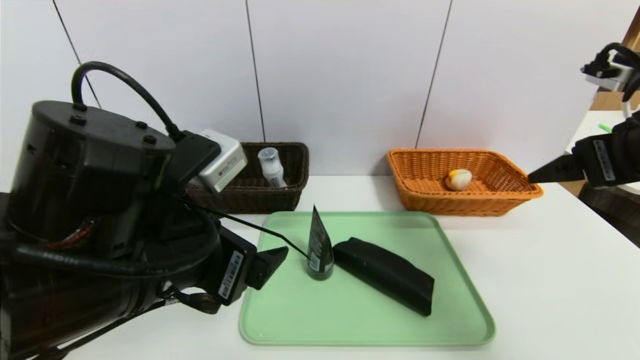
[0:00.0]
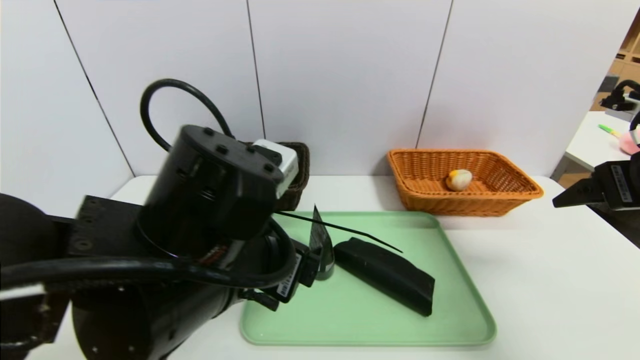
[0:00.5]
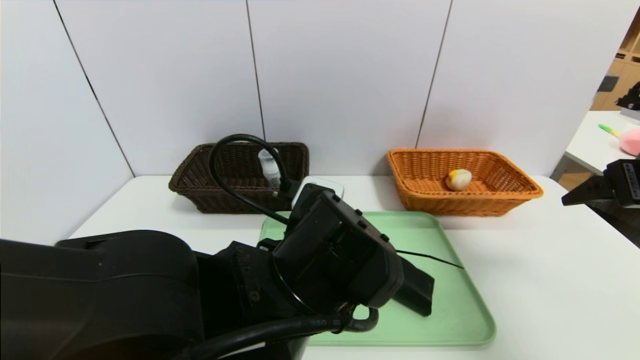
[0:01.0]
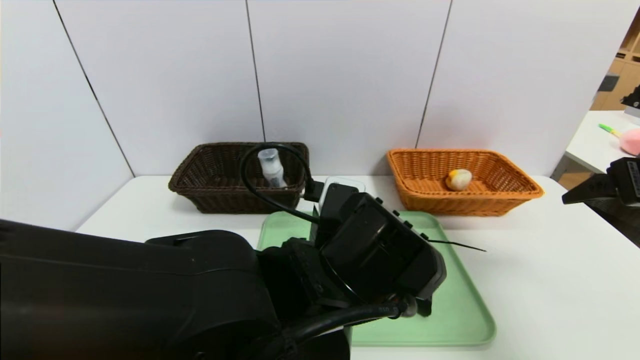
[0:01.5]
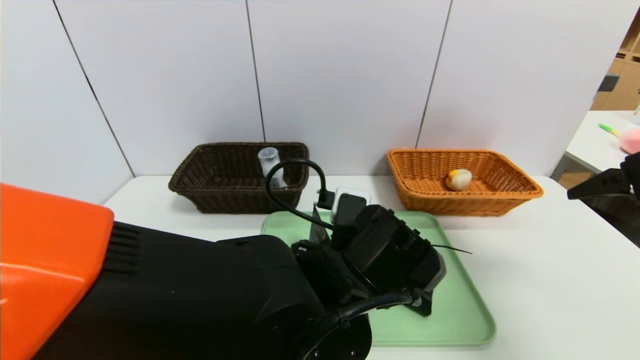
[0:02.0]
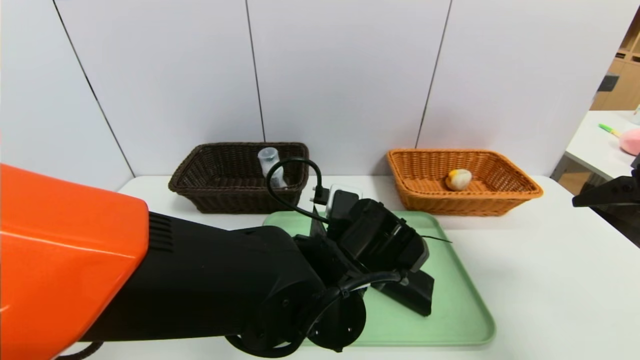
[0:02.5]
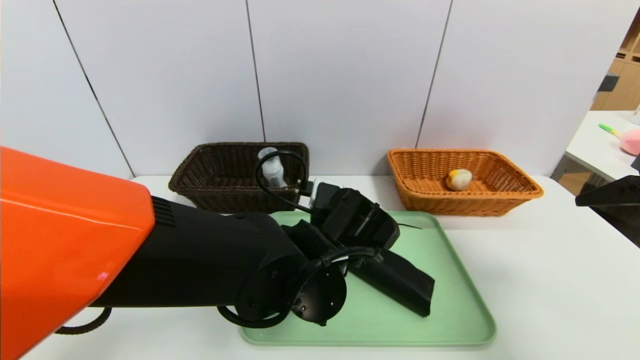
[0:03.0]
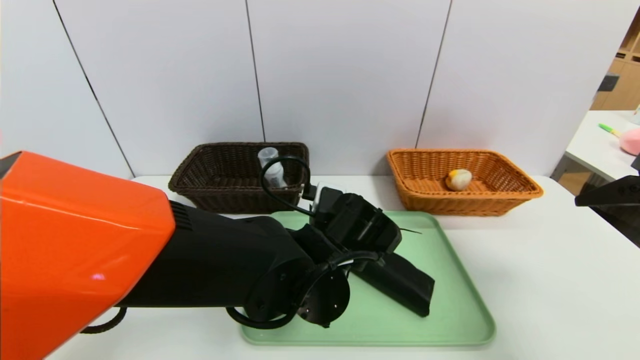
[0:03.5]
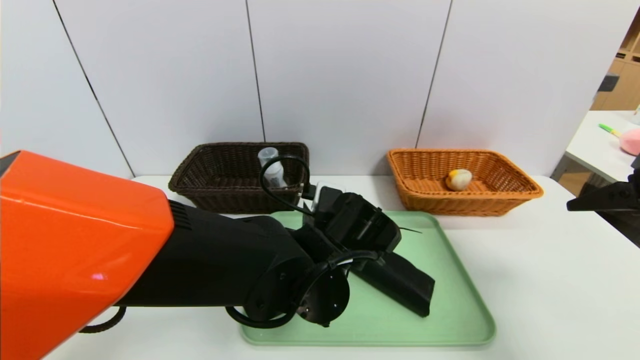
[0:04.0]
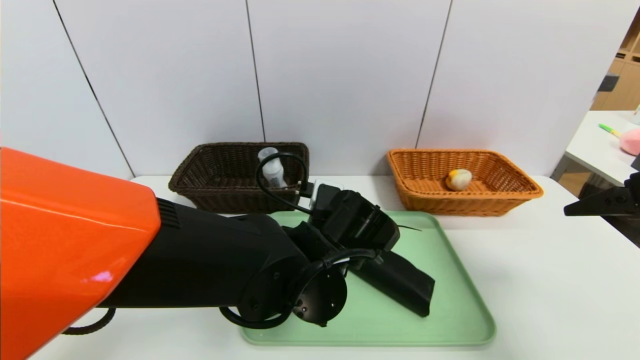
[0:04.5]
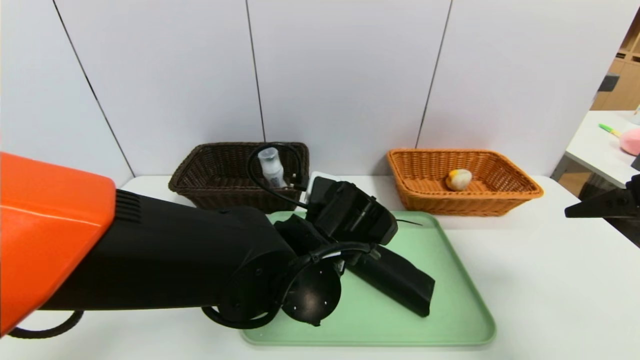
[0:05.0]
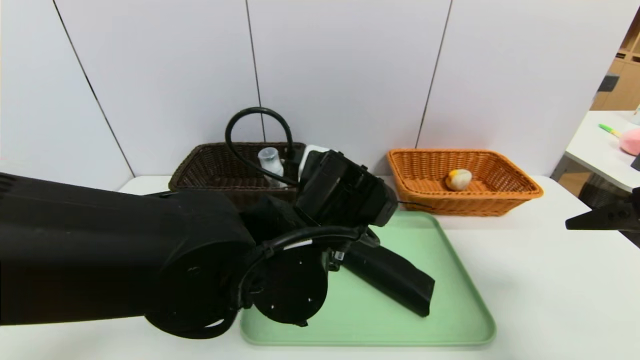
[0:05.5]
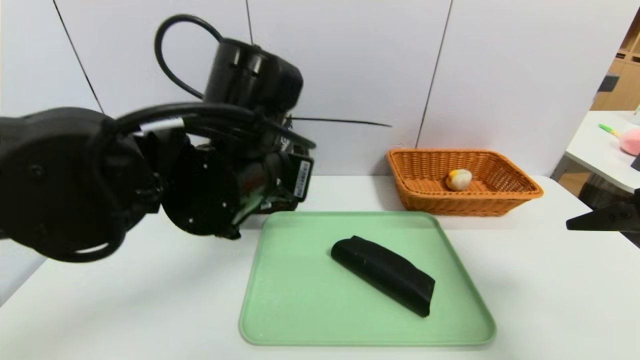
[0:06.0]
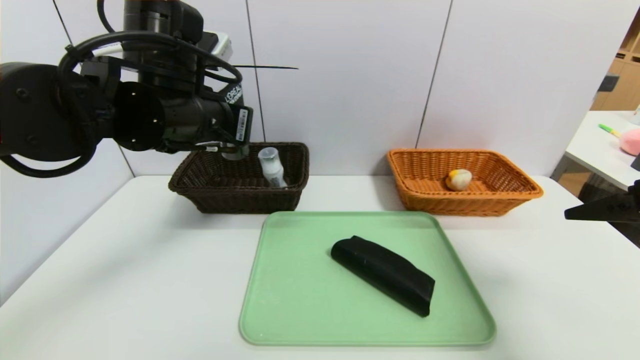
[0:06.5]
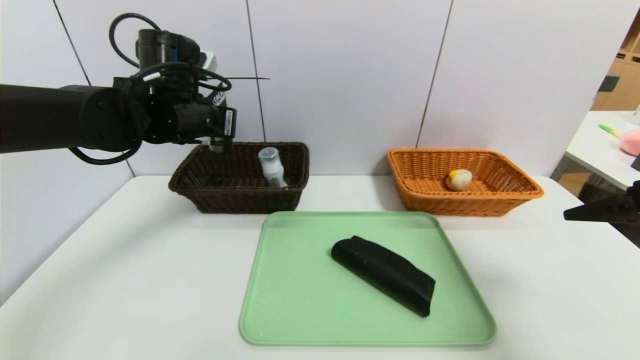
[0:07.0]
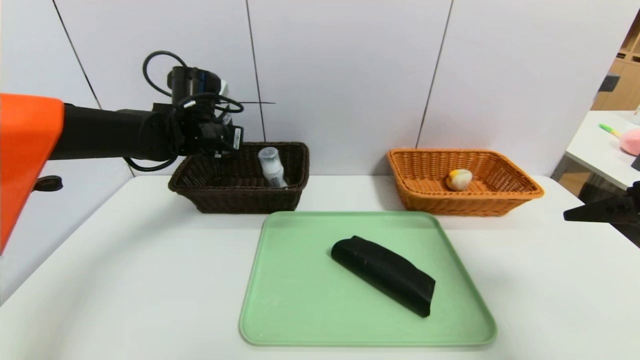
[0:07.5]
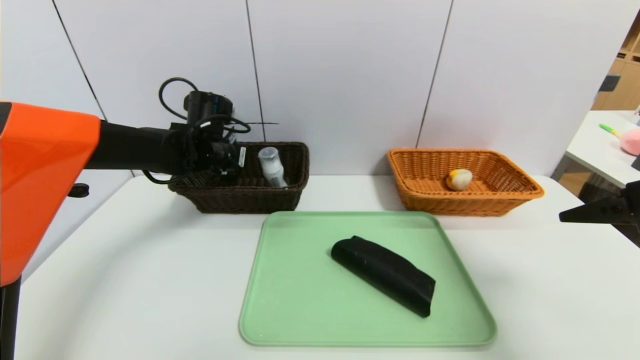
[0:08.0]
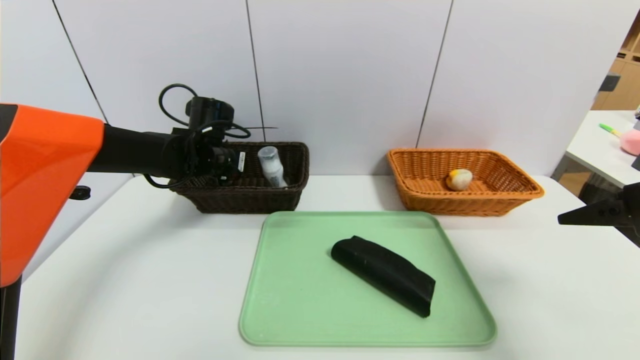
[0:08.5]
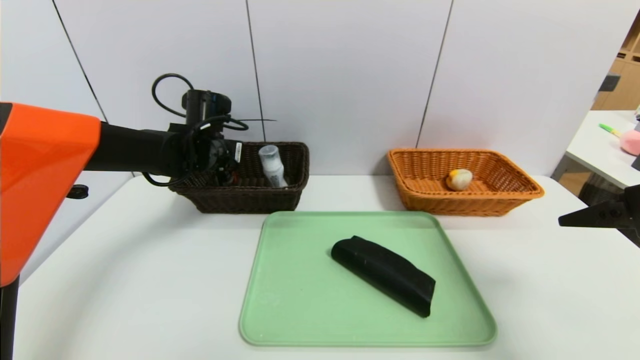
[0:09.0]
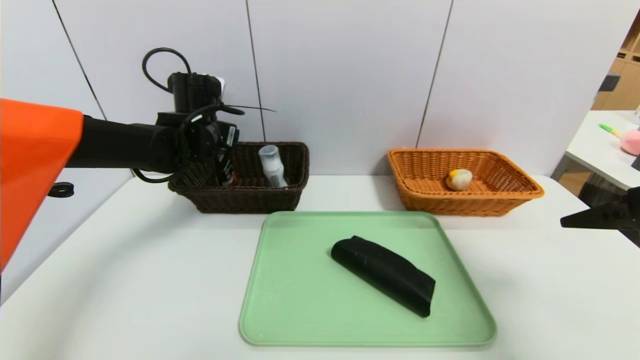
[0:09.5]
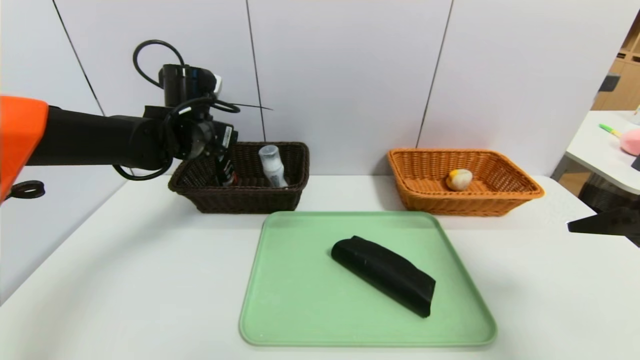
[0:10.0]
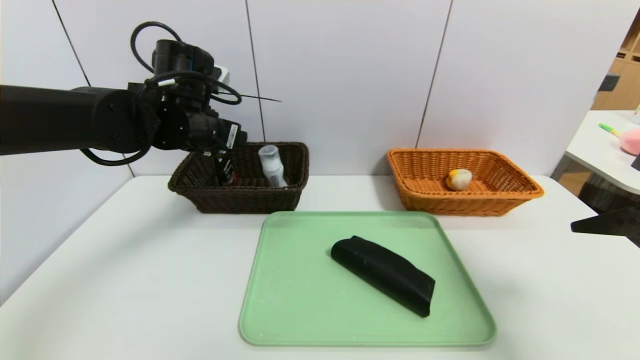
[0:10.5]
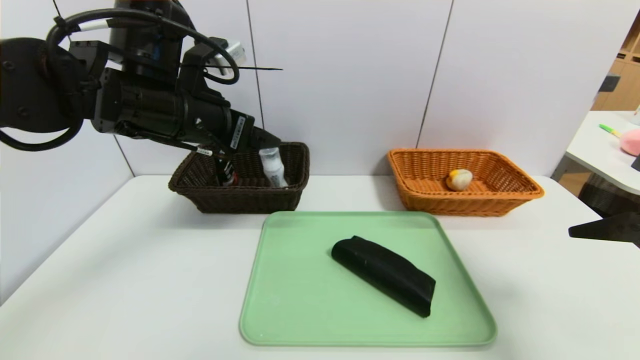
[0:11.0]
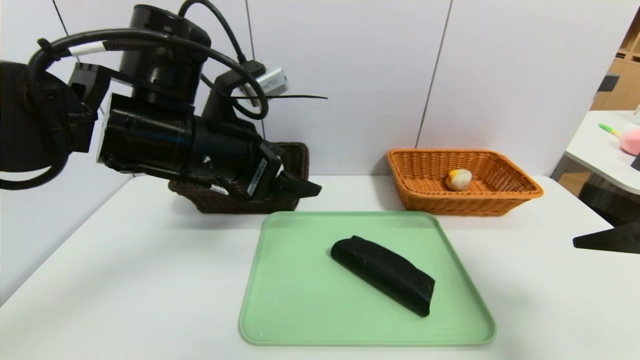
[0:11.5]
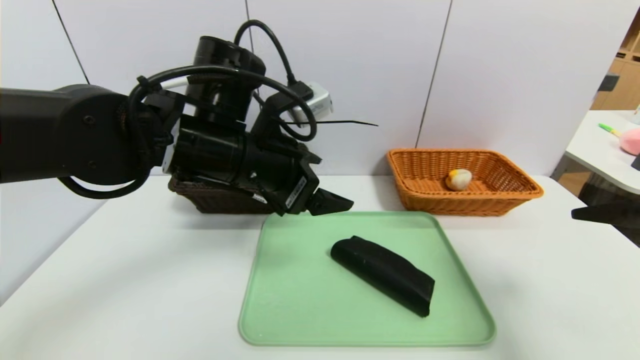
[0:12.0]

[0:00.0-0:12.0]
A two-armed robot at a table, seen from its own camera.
Task of the whole recording: place the food in the right basket with the right gripper, and place the non food items in the left basket with the left gripper.
Step, 0:00.0 to 0:10.5: Grasp the soft cleanser and put it in the left basket.
0:00.0 to 0:02.0: The left gripper is displaced to the right and downward by about 15 cm. The right gripper is displaced to the right by some 5 cm.
0:02.0 to 0:04.0: The left gripper shifts by about 5 cm, and closes.
0:04.0 to 0:06.0: The left gripper moves upward and to the left, about 15 cm, and closes.
0:06.0 to 0:08.0: The left gripper heads forward, to the left and downward, covering roughly 25 cm.
0:08.0 to 0:10.0: The left gripper shifts by about 5 cm, and opens.
0:10.0 to 0:12.0: The left gripper shifts about 15 cm backward and to the right.

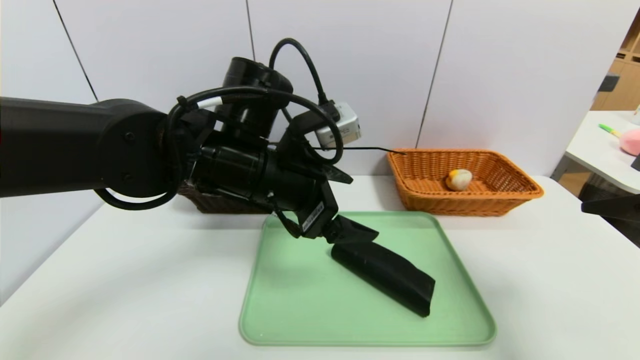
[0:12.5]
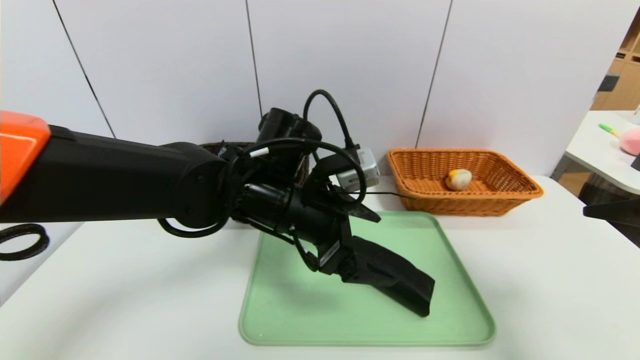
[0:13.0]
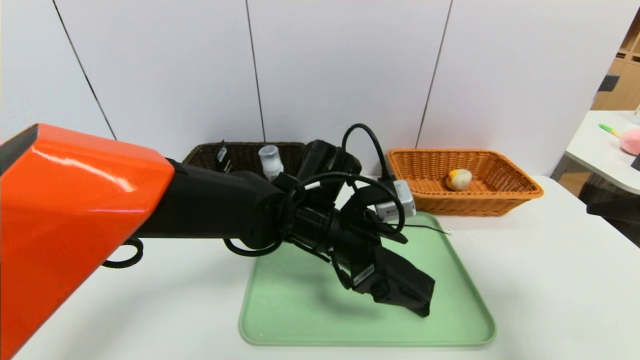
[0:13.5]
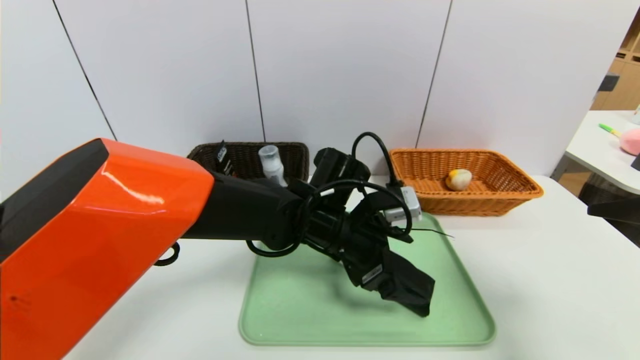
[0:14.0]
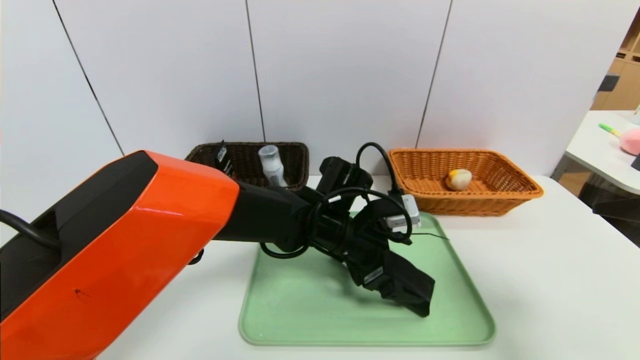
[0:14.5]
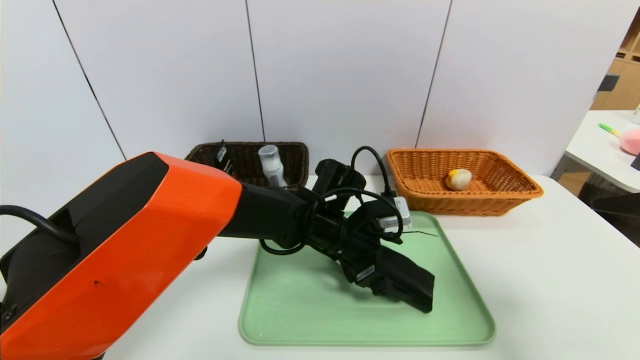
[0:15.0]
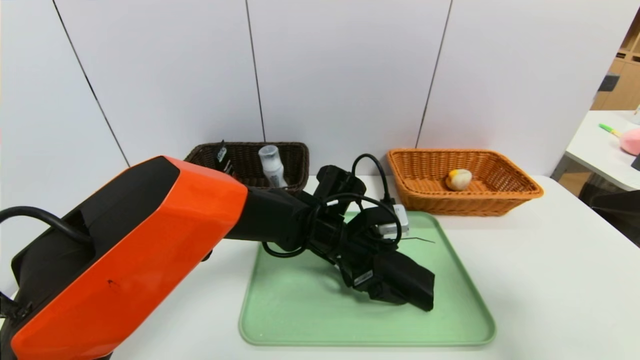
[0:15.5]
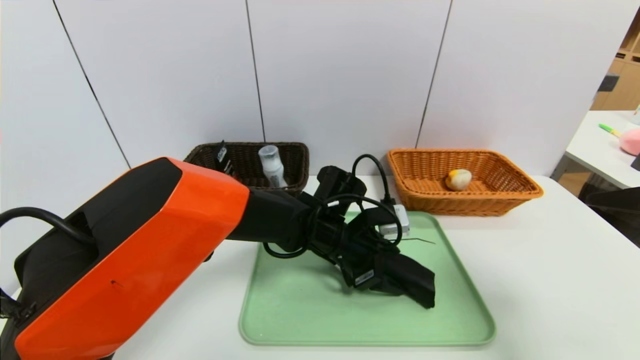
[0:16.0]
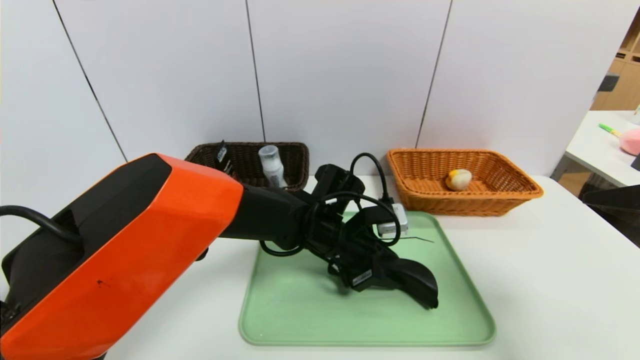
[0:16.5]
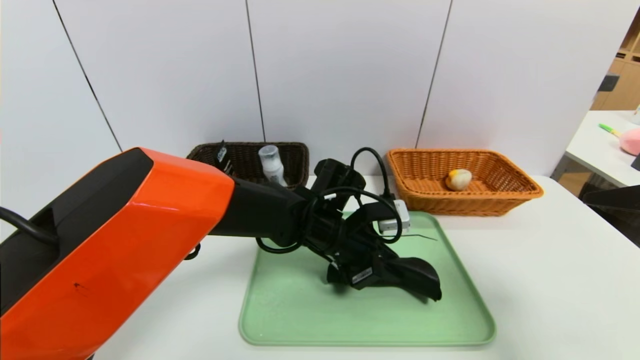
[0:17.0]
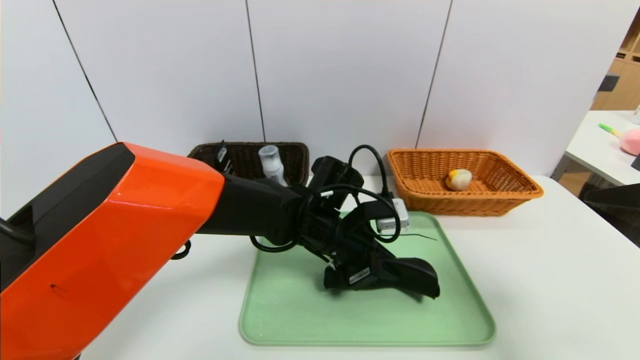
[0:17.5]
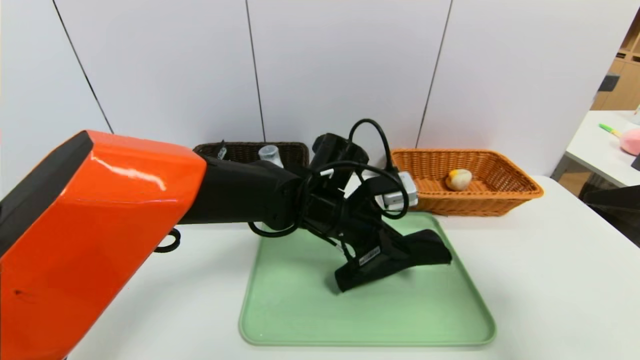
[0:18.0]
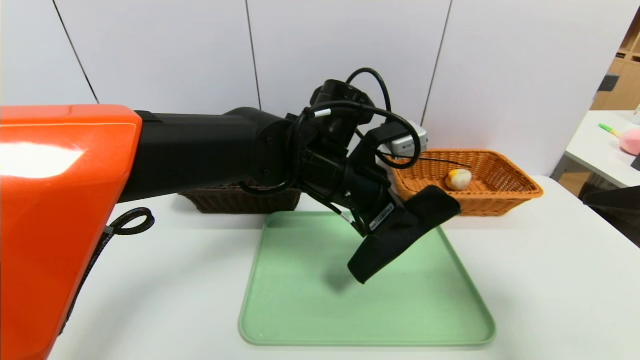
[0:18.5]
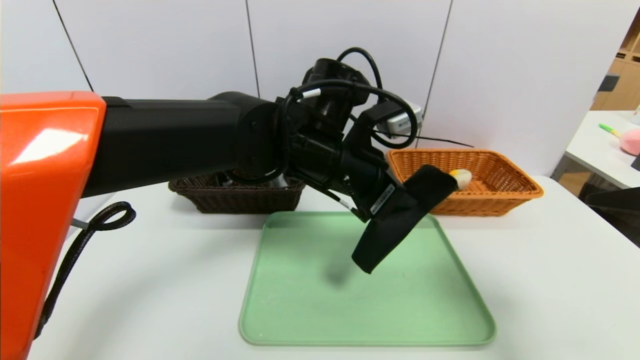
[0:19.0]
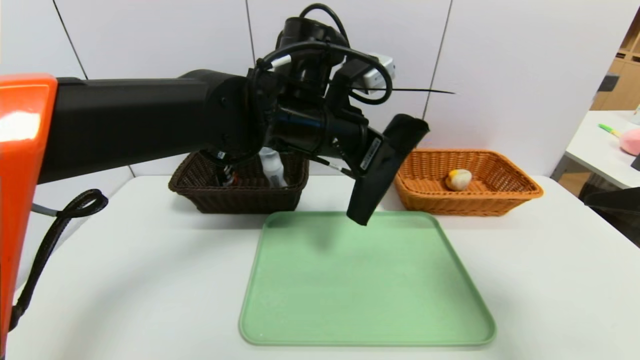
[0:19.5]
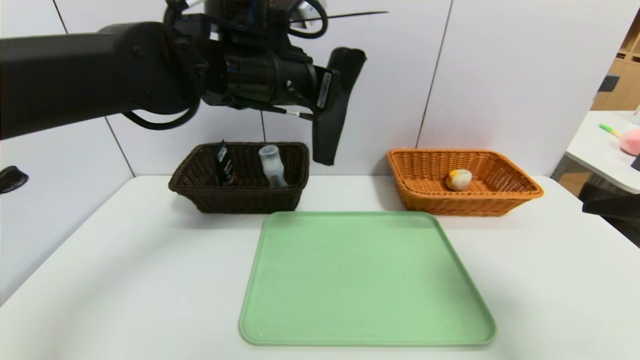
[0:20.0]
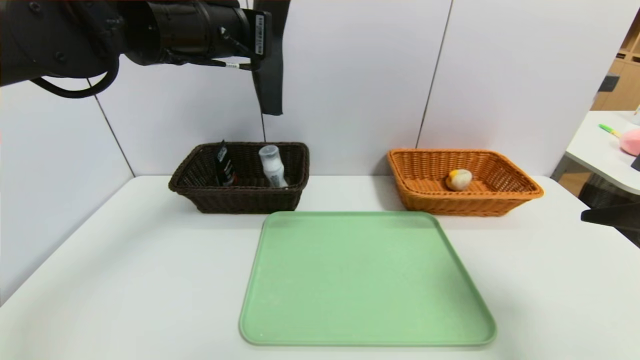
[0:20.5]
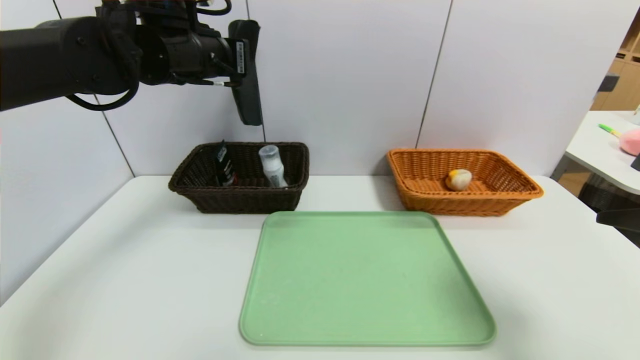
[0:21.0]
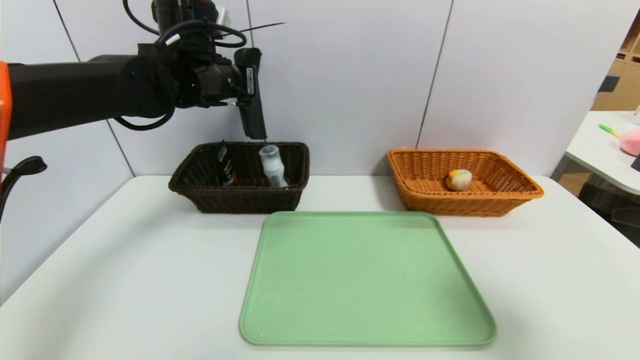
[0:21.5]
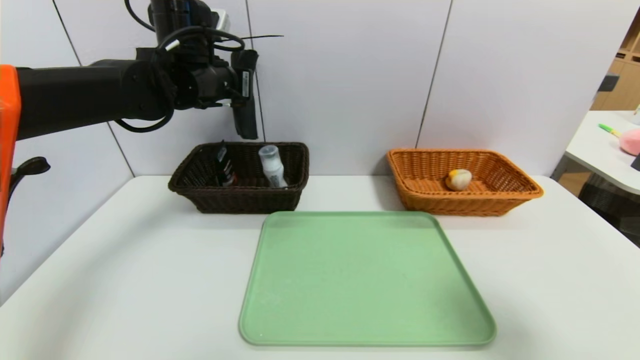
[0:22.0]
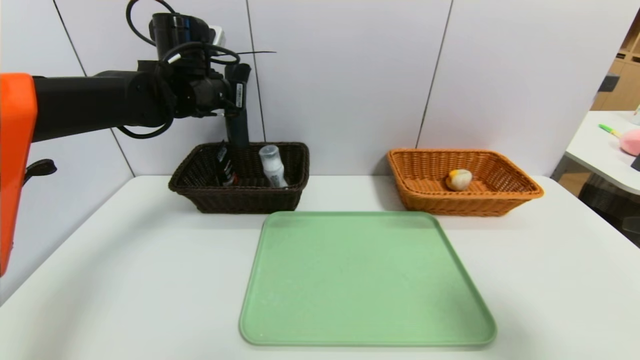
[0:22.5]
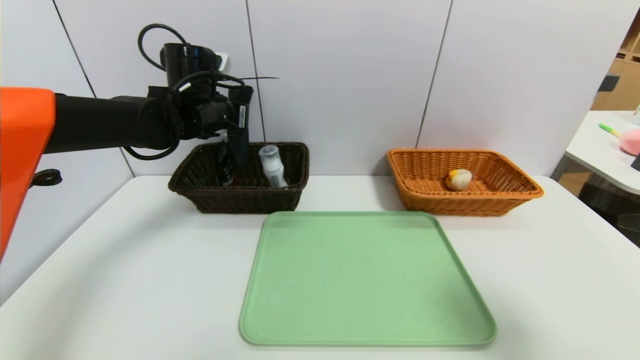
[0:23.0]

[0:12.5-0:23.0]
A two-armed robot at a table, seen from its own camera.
Task of the whole recording: place the food in the right basket with the right gripper, and place the non food items in the left basket with the left gripper.
0:12.5 to 0:14.5: The left gripper moves downward and to the right, some 15 cm.
0:14.5 to 0:16.5: The left gripper closes.
0:16.5 to 0:19.0: The left gripper goes roughly 15 cm upward.
0:19.0 to 0:21.0: The left gripper is displaced to the left and upward by roughly 20 cm.
0:21.0 to 0:23.0: The left gripper heads downward and forward, covering some 10 cm.
